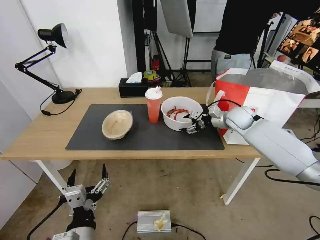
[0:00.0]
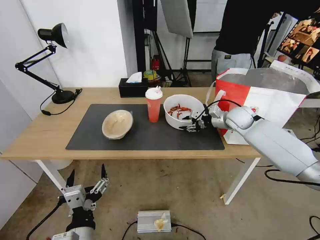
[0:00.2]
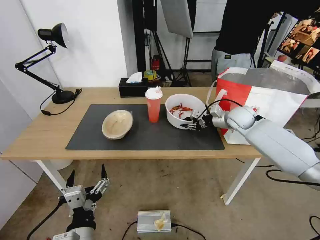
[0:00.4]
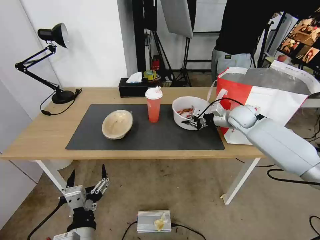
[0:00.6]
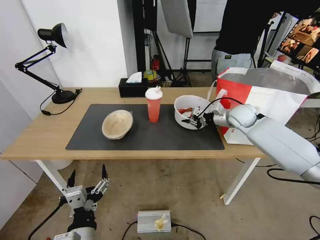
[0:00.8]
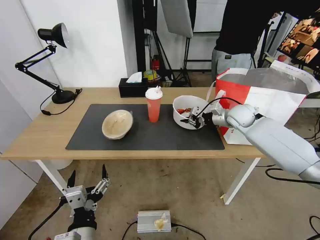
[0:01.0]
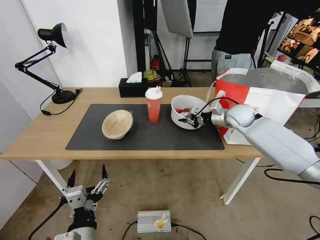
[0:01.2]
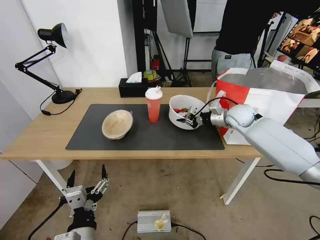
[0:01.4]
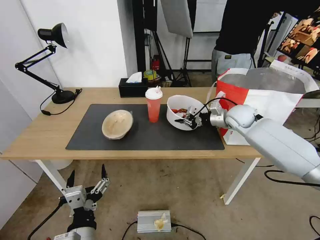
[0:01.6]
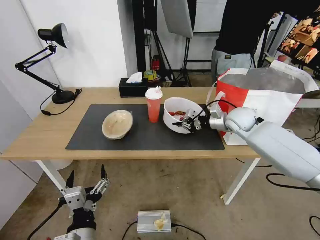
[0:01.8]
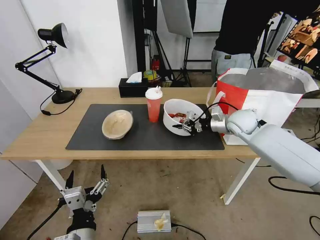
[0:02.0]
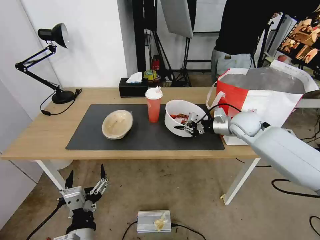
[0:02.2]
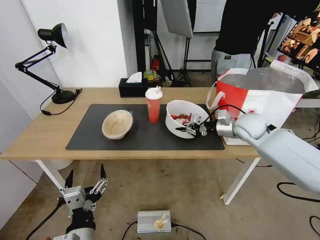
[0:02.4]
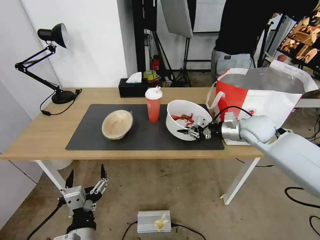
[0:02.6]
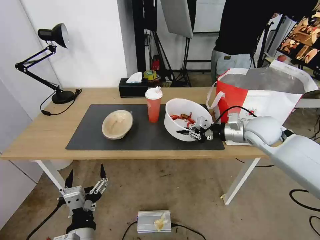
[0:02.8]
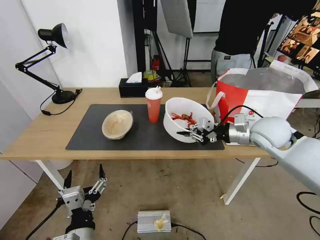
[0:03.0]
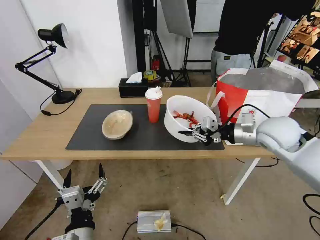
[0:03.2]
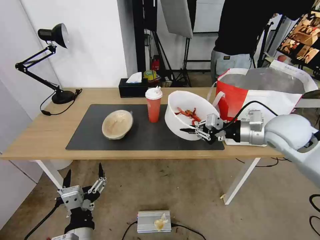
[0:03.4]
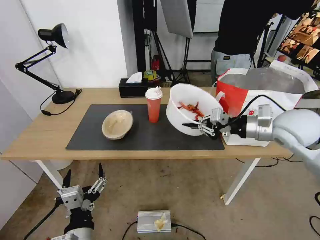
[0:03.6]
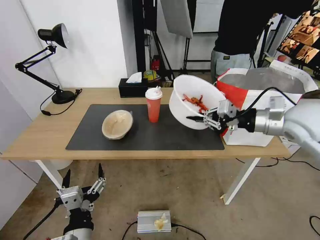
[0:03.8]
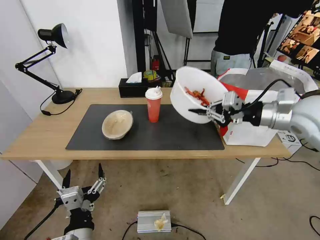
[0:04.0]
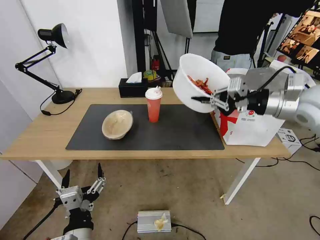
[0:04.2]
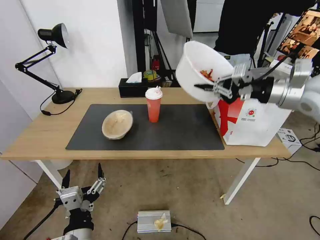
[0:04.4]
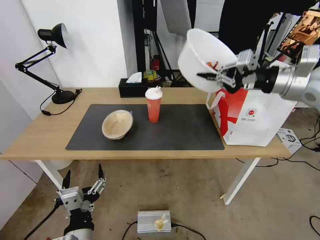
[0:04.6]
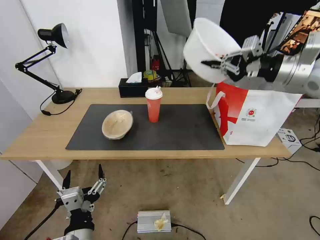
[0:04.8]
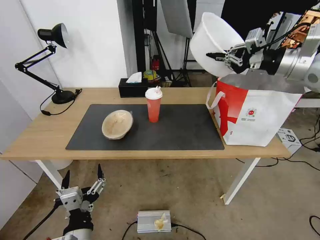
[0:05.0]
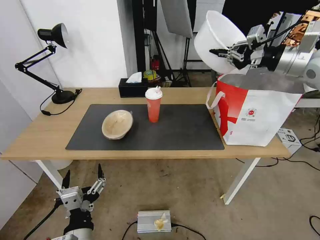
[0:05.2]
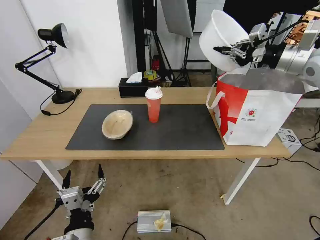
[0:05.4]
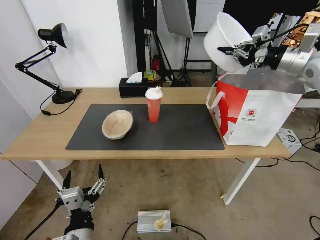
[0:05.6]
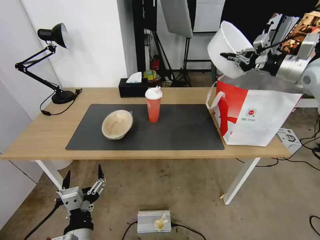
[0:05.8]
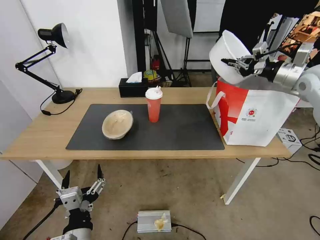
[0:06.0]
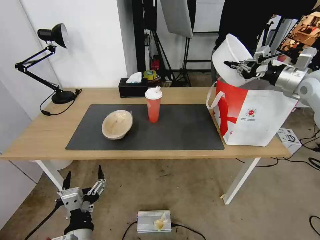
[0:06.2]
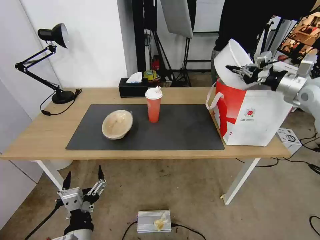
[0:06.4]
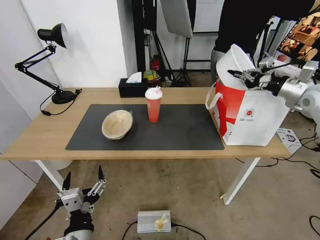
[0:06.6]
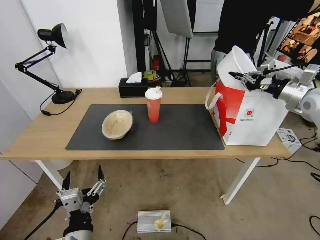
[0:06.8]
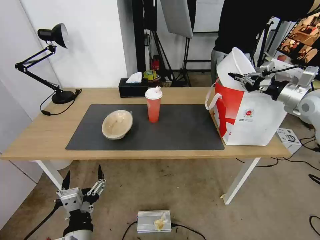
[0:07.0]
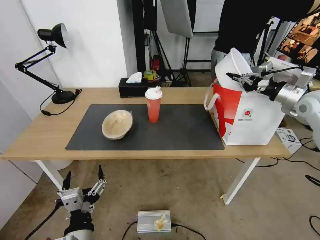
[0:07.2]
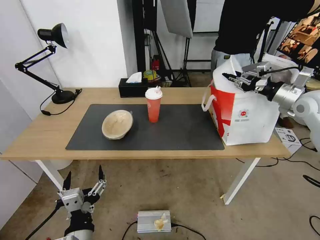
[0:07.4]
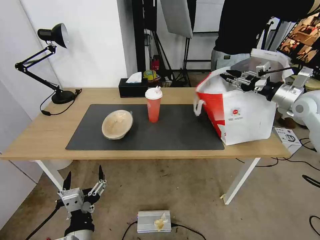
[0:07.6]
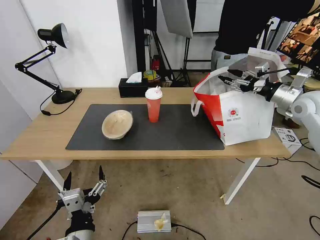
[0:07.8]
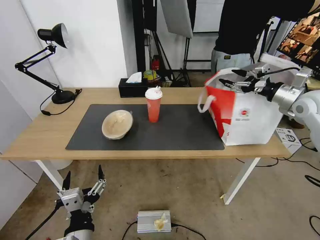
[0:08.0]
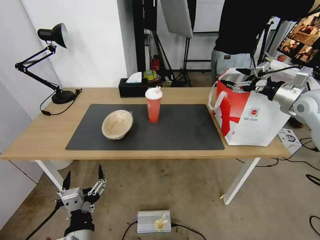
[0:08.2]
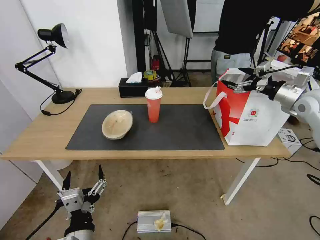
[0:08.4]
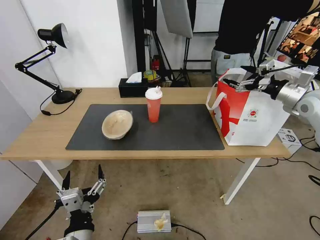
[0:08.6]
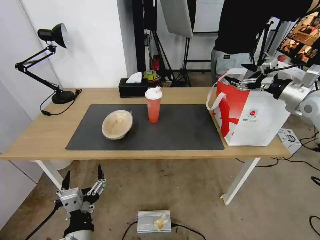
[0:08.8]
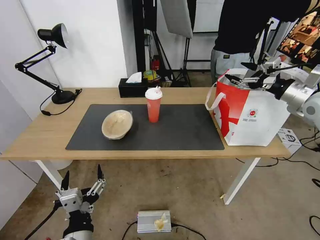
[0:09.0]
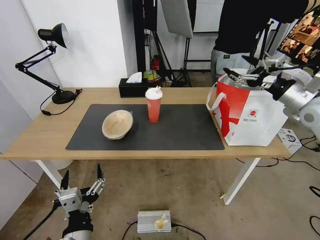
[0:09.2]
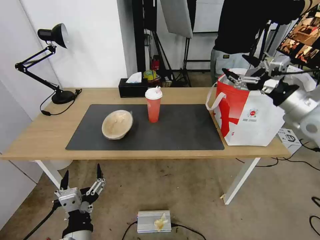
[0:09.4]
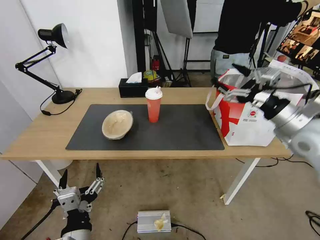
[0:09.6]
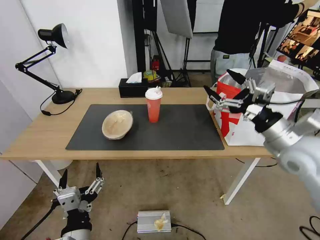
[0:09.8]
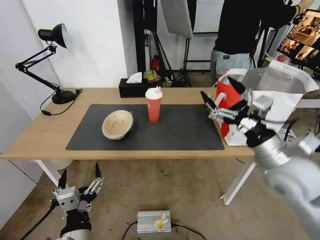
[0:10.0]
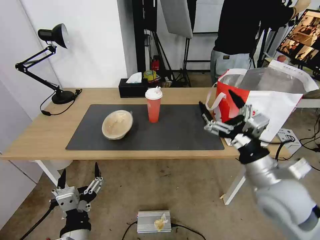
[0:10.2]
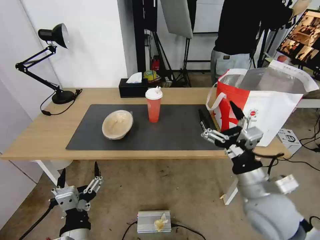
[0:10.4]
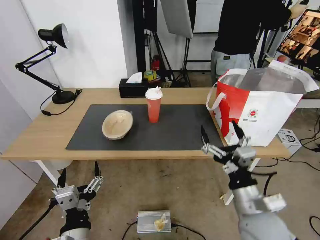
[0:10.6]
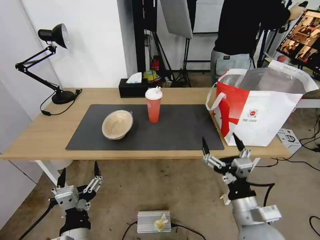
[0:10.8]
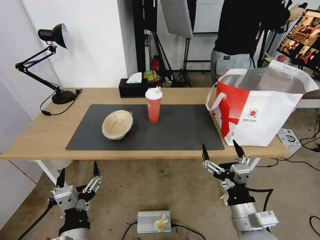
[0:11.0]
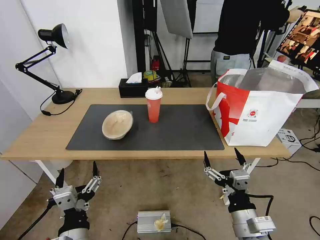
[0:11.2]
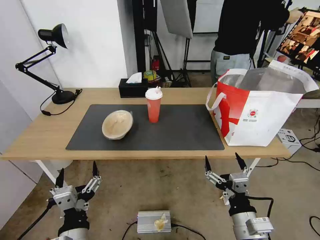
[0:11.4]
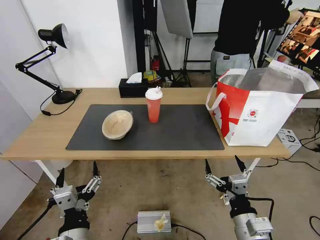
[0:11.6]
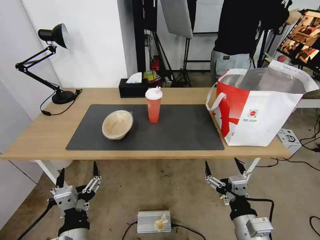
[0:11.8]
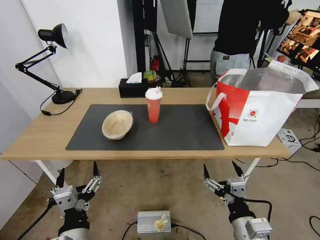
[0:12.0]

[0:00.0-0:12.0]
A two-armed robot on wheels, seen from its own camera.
Task of the whole recording: Pick up the trash from the table and place it into the takeout bag.
0:00.0 to 0:01.6: The right gripper closes its fingers.
0:01.6 to 0:03.0: The right gripper shifts approximately 15 cm backward.
0:03.0 to 0:04.4: The right gripper is displaced upward by roughly 15 cm.
0:04.4 to 0:06.0: The right gripper moves forward and to the right, roughly 15 cm.
0:06.0 to 0:07.6: The right gripper heads downward, covering approximately 5 cm, and opens.
0:07.6 to 0:09.0: The right gripper opens up.
0:09.0 to 0:10.4: The right gripper heads backward, to the left and downward, covering roughly 35 cm.
0:10.4 to 0:12.0: The right gripper shifts approximately 15 cm backward and downward.

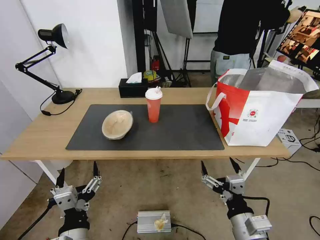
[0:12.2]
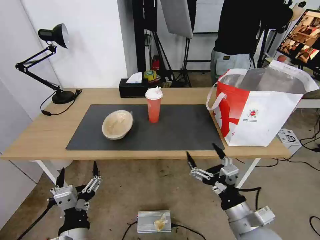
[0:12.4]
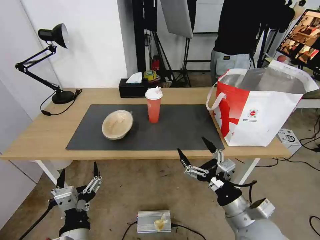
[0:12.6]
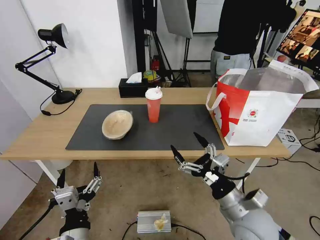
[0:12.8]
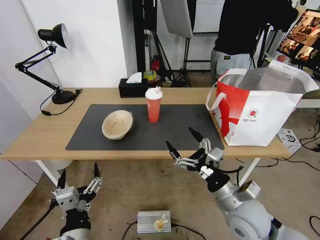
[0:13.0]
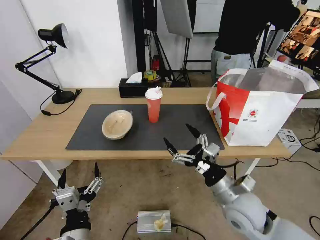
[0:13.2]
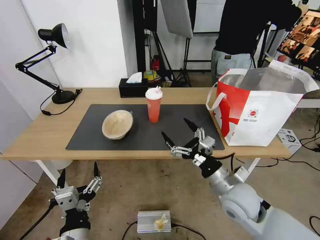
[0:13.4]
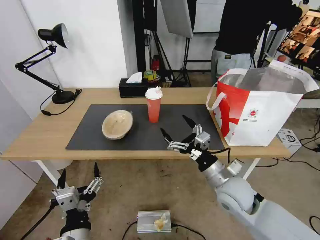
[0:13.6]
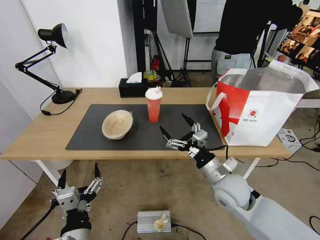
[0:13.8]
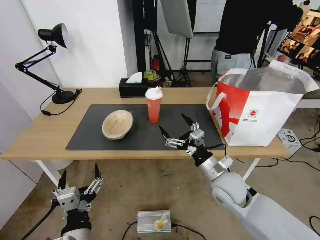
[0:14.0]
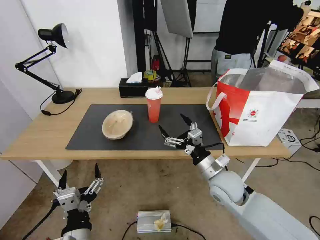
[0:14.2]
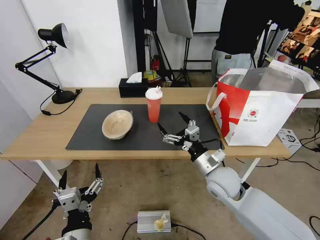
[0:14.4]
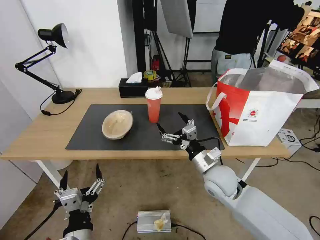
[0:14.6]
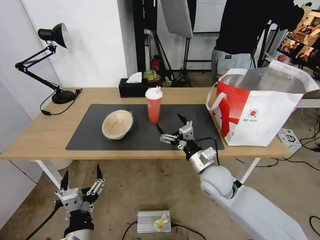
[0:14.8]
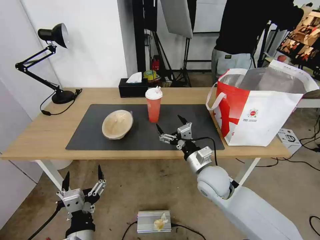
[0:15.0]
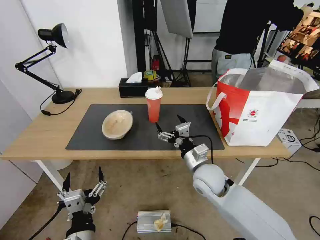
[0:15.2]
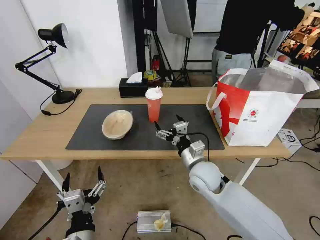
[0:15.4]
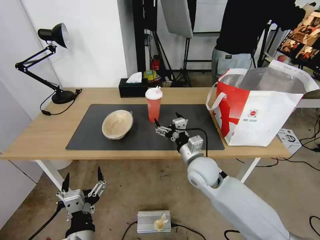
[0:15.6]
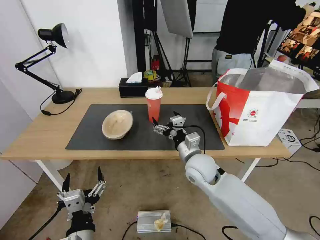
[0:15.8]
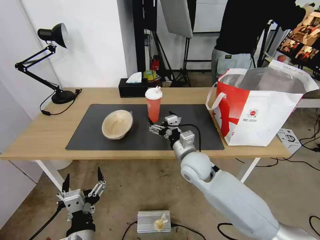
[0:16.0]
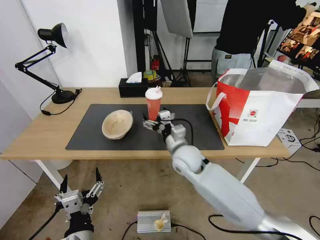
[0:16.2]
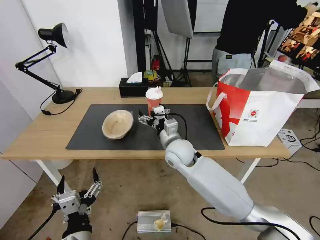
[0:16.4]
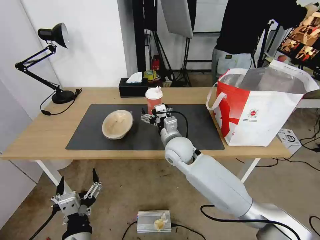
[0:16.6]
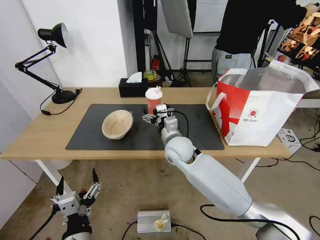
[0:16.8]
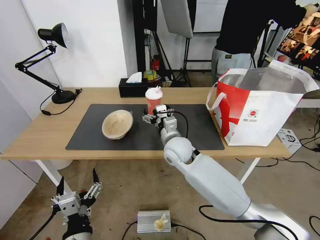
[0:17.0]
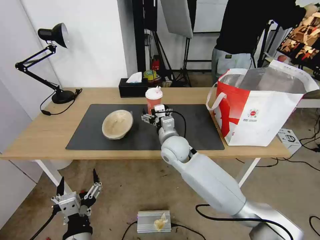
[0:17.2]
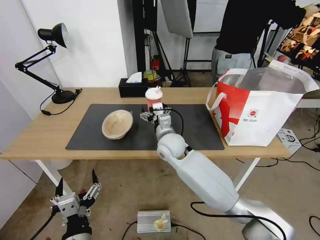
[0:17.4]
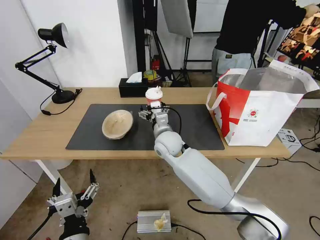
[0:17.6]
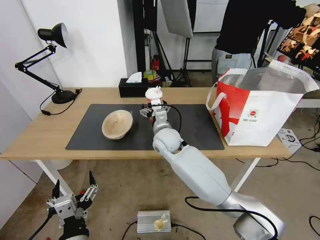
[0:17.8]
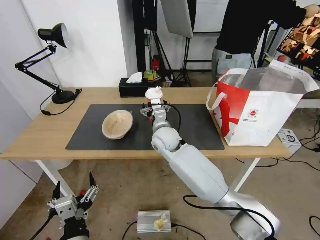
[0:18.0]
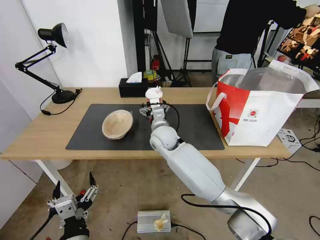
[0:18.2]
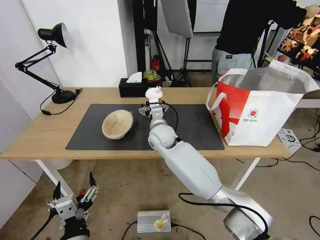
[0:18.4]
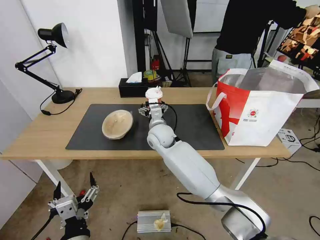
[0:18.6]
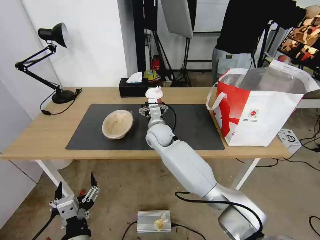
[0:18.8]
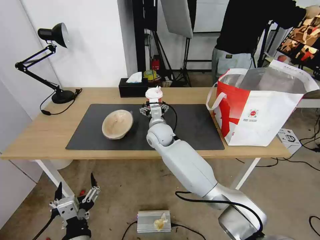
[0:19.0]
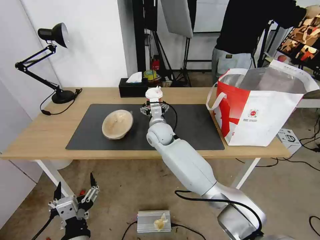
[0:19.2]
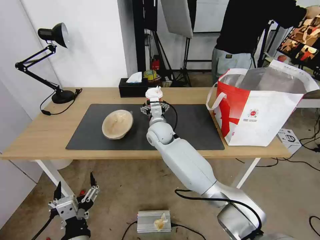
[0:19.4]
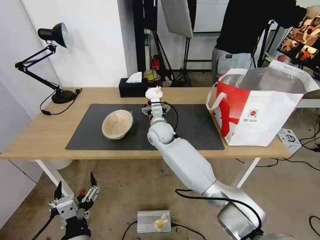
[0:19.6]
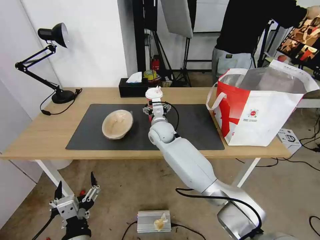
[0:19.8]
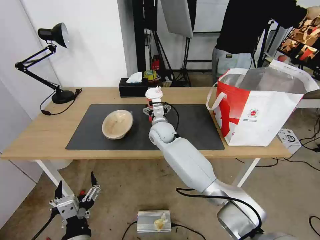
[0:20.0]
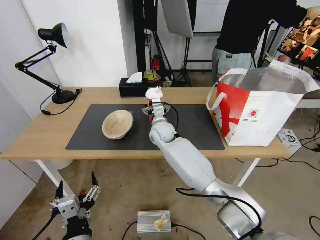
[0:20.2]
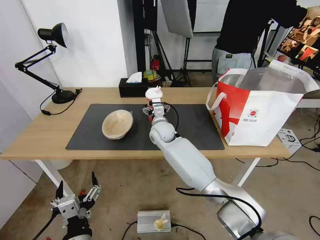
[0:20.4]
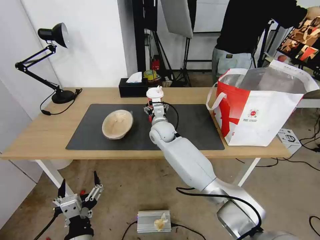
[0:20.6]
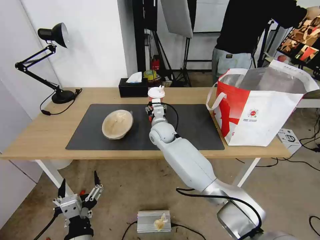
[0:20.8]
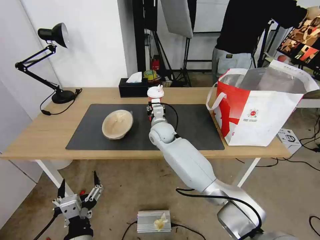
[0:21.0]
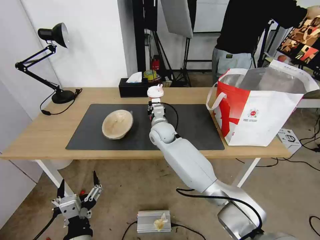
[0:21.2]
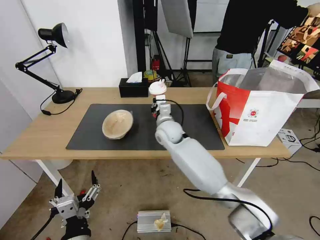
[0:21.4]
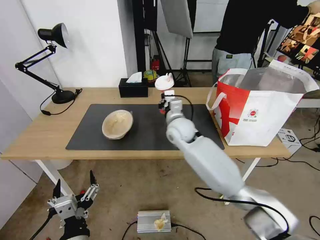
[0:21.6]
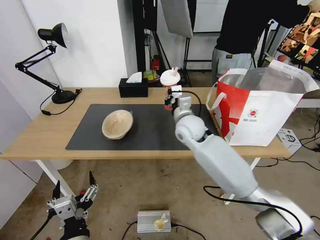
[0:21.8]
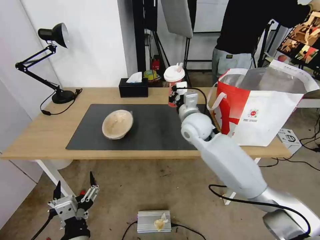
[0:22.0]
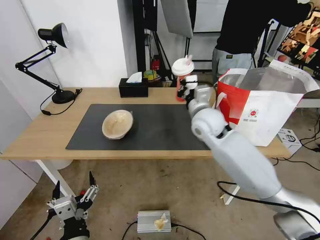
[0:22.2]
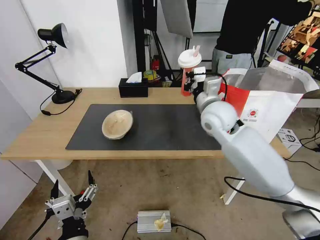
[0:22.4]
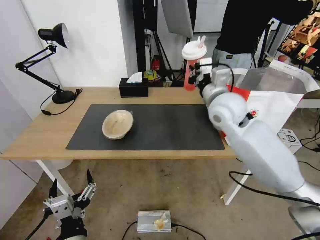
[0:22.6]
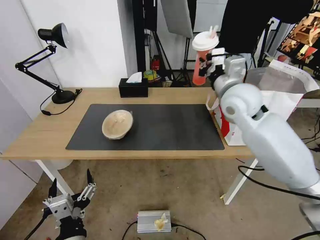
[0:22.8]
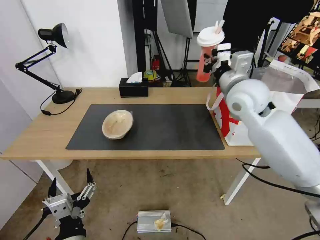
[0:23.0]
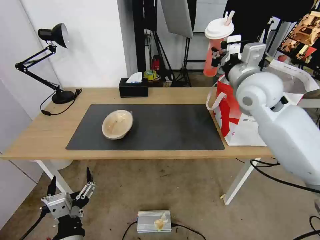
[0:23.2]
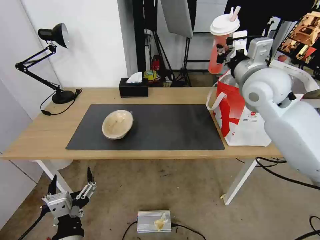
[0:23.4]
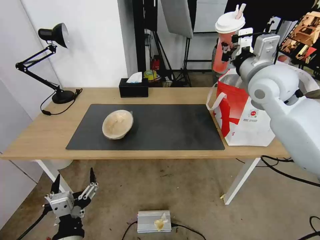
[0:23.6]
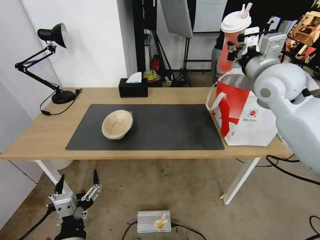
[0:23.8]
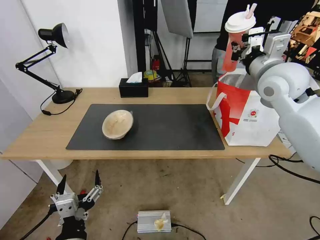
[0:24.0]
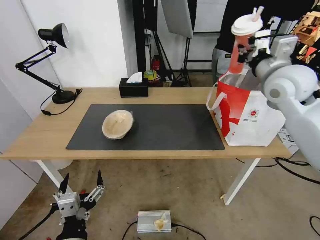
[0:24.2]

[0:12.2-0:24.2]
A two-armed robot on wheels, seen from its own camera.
Task of the whole recording: Pick up the trash from the table and place it into the takeout bag.
0:12.2 to 0:13.8: The right gripper goes some 15 cm forward.
0:13.8 to 0:15.2: The right gripper goes about 5 cm to the left.
0:15.2 to 0:16.6: The right gripper is displaced to the left and forward by some 10 cm.
0:16.6 to 0:18.2: The right gripper moves forward, approximately 5 cm.
0:18.2 to 0:19.8: There are only small adjustments of the grippers.
0:19.8 to 0:21.2: The right gripper closes.
0:21.2 to 0:22.6: The right gripper is displaced upward, to the right and backward by approximately 25 cm.
0:22.6 to 0:24.2: The right gripper heads to the right and upward, covering approximately 15 cm.
